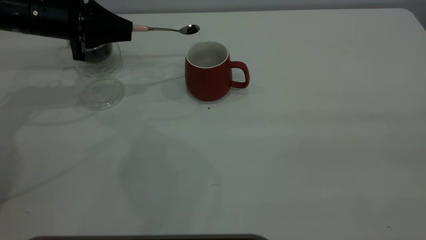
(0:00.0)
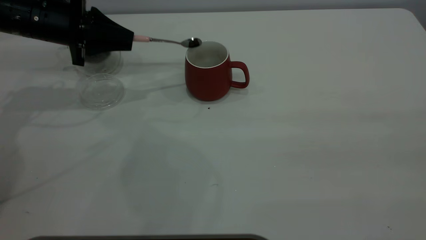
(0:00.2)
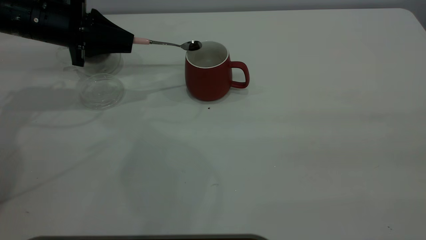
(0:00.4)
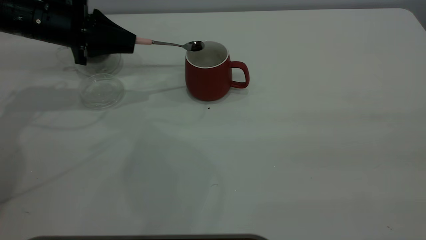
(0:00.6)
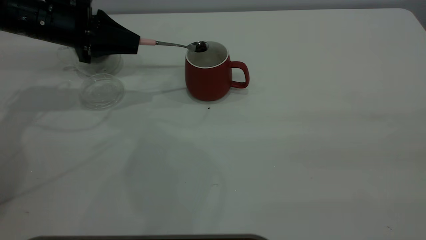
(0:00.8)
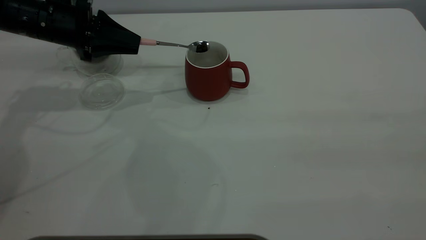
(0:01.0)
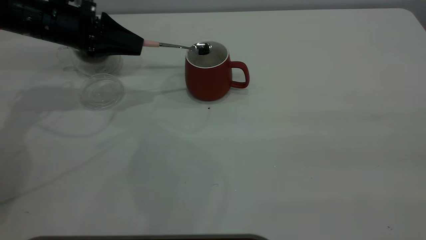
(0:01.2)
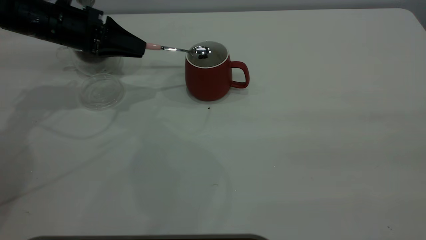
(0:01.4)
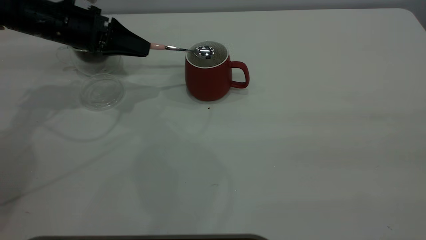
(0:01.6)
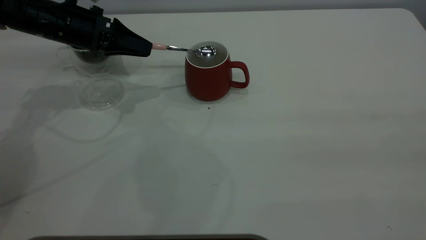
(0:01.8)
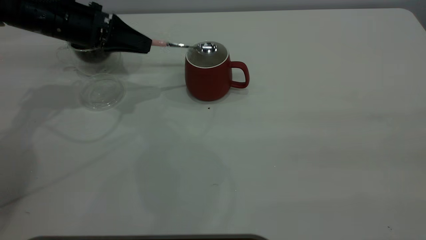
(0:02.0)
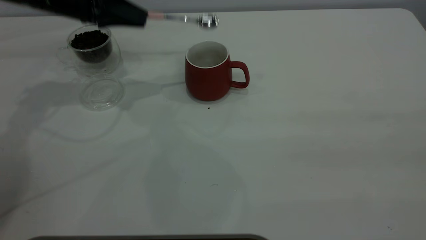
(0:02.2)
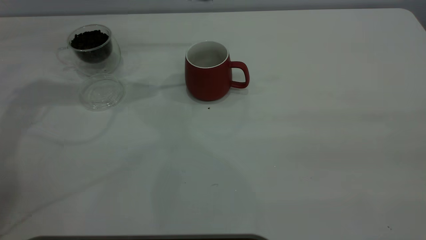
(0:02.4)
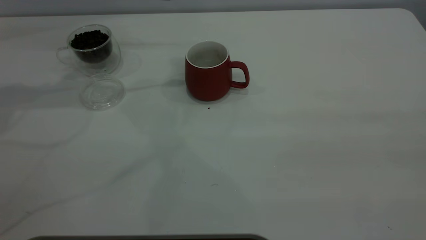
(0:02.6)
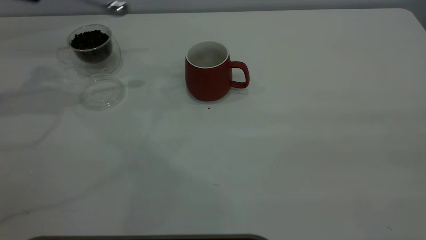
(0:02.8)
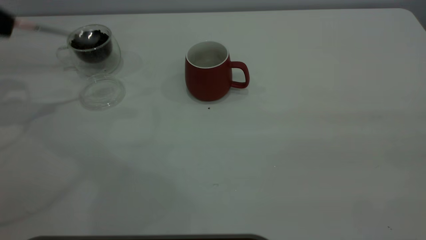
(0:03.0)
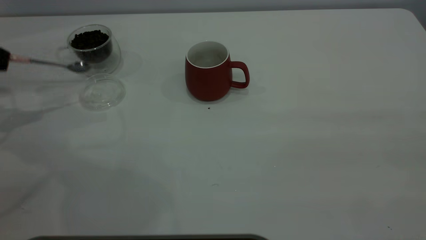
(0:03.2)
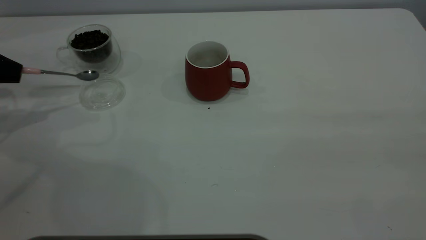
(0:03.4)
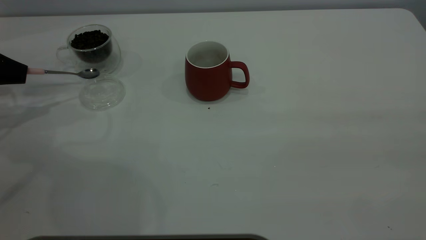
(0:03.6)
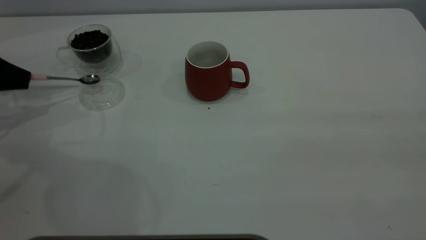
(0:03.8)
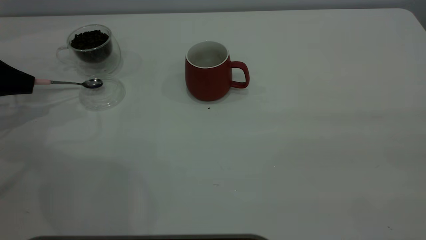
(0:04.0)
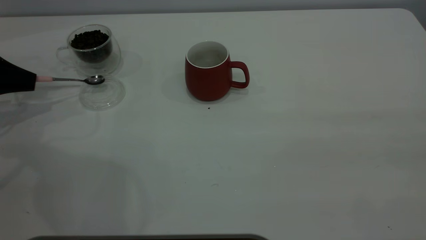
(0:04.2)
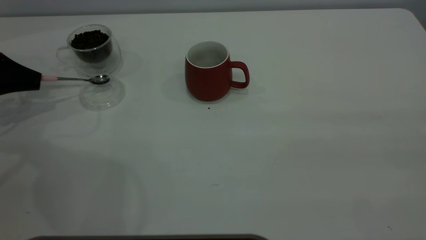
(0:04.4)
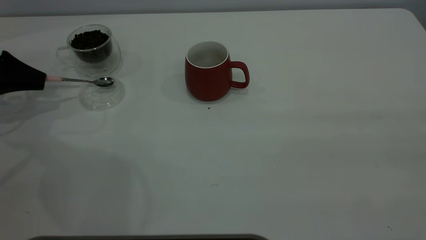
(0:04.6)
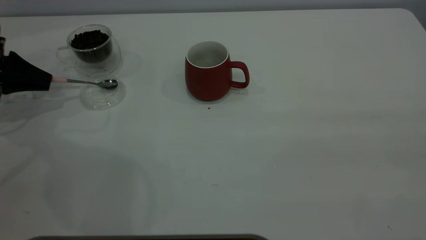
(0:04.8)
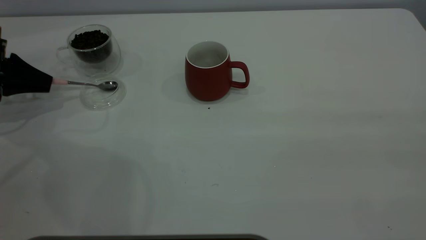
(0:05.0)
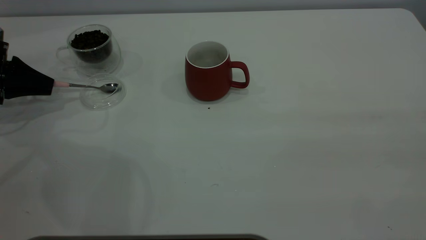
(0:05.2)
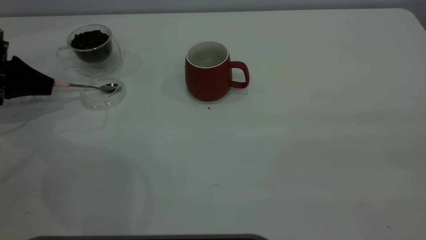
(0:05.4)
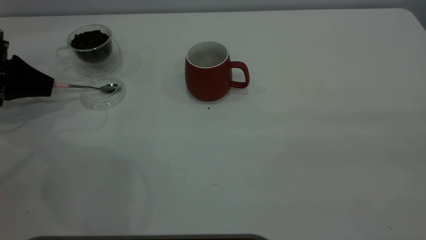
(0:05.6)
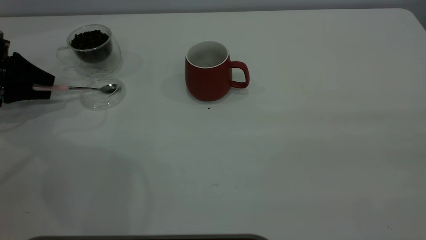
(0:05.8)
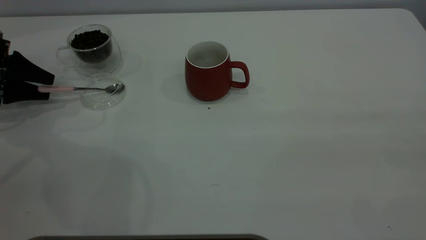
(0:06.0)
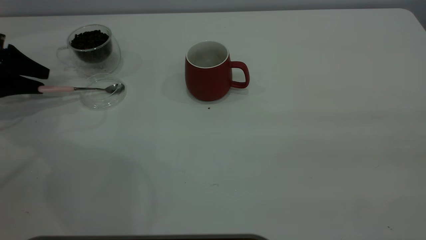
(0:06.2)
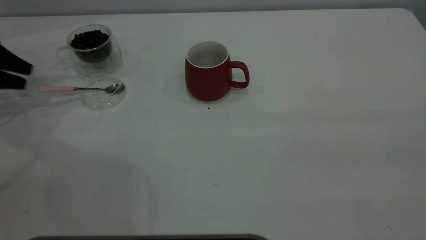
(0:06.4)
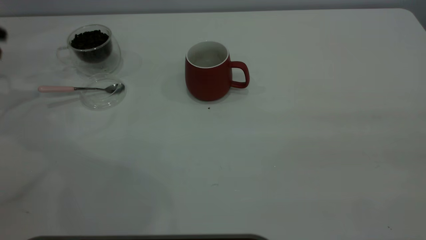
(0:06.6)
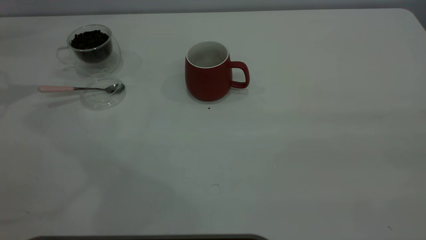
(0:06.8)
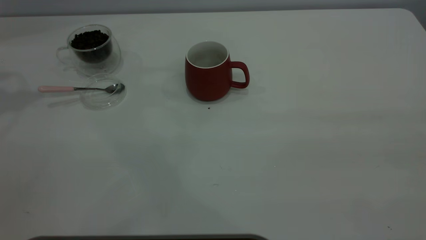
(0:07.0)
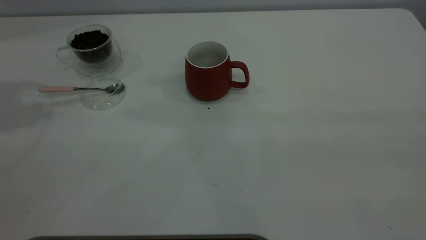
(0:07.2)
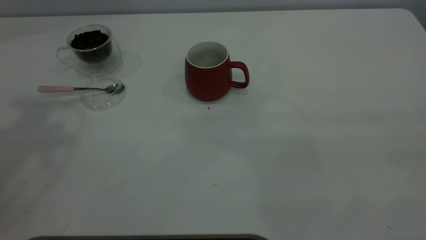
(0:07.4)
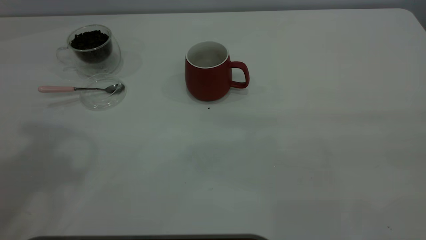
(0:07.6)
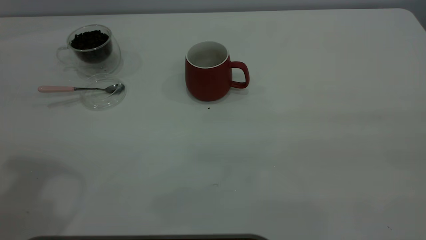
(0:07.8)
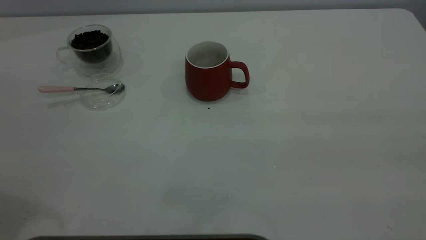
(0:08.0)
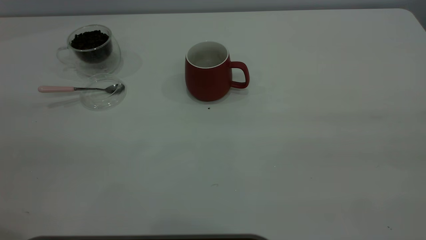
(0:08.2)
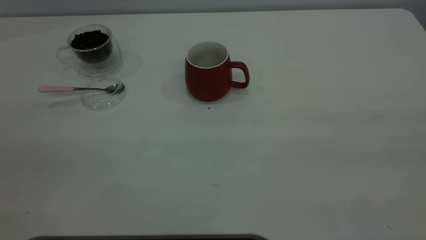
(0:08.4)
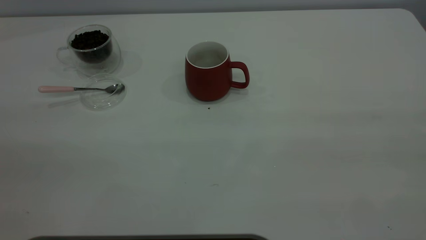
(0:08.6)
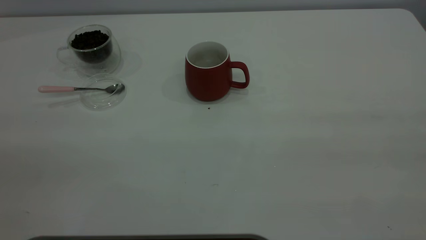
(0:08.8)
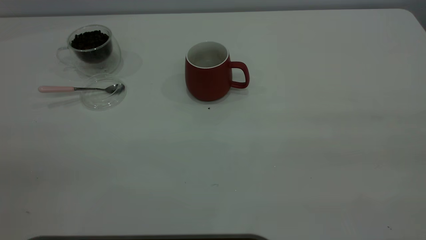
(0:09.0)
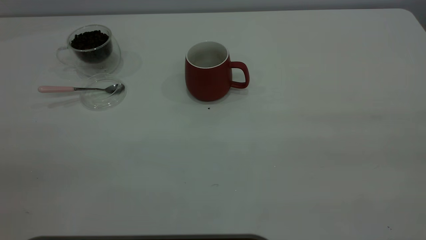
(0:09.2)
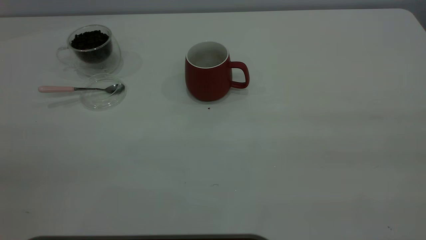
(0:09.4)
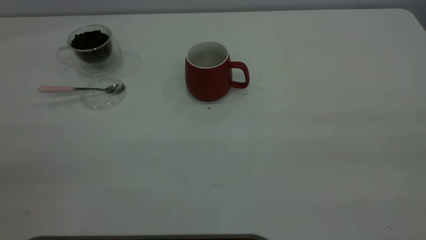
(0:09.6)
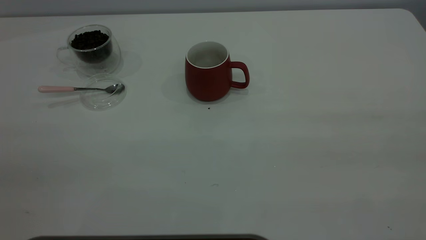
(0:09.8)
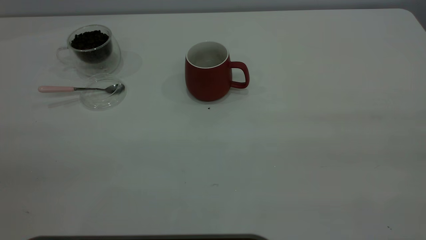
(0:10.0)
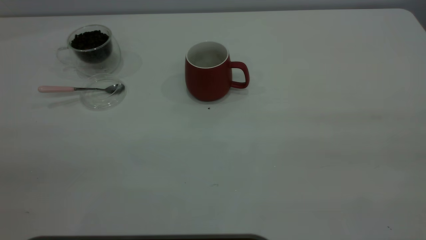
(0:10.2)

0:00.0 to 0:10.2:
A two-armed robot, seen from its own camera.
Task of the whole recording: the right gripper place the red cup in the center of the table, the left gripper take the pink spoon from the cup lid and scoop out the coffee beans from the coffee cup and put them into the red cup, the left gripper put the spoon back into the cup lid.
Step, 0:00.0 to 0:02.2: Scoop a spoonful of beans into the cup.
Step, 0:02.4 to 0:06.4: Place the spoon back in its original place.
0:01.4 to 0:03.0: The left gripper travels to the left and upward by roughly 20 cm.
0:03.0 to 0:04.4: The left gripper shifts some 10 cm downward.
0:04.4 to 0:05.8: The left gripper opens its fingers.
0:05.8 to 0:07.2: The left gripper goes approximately 35 cm upward.

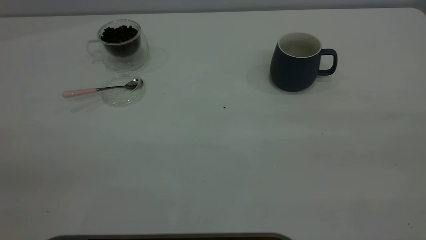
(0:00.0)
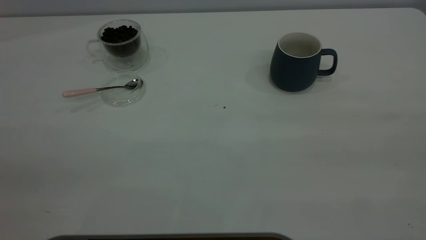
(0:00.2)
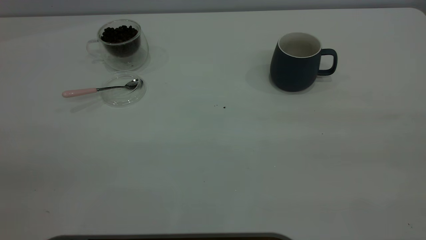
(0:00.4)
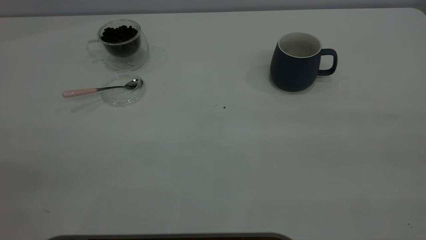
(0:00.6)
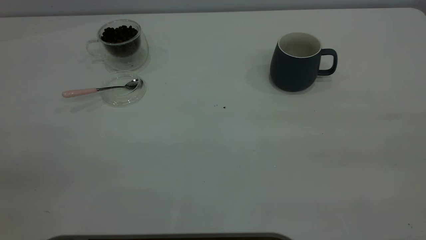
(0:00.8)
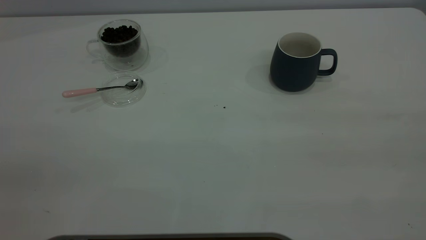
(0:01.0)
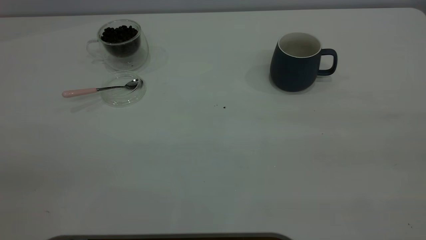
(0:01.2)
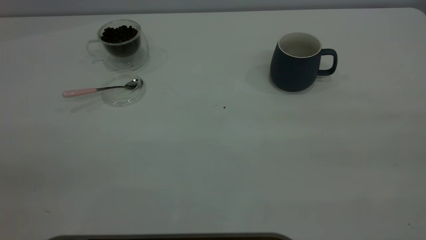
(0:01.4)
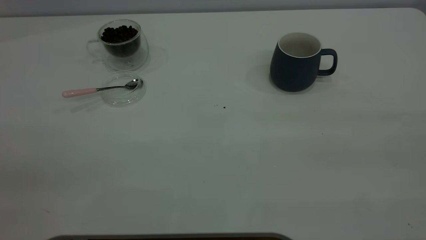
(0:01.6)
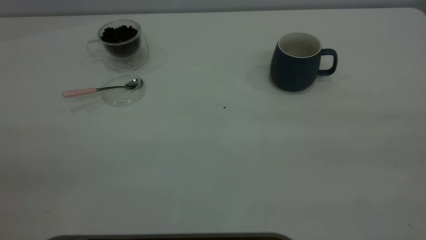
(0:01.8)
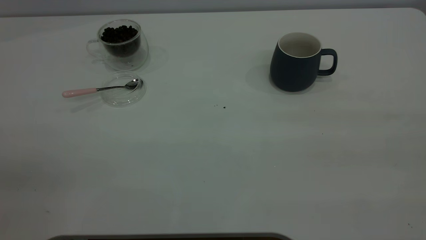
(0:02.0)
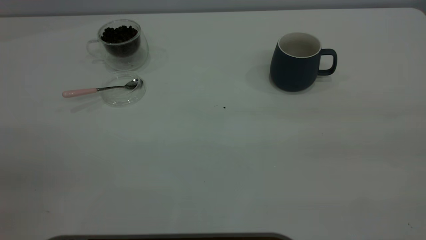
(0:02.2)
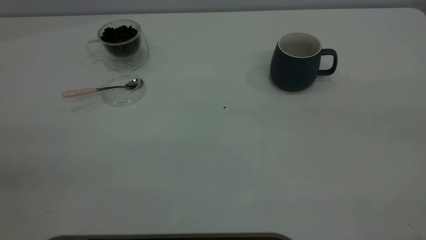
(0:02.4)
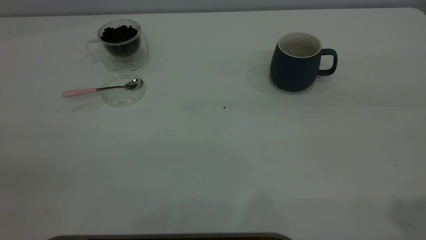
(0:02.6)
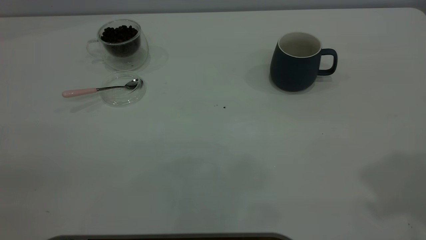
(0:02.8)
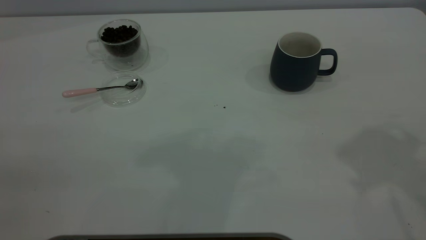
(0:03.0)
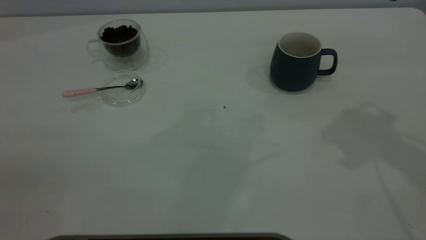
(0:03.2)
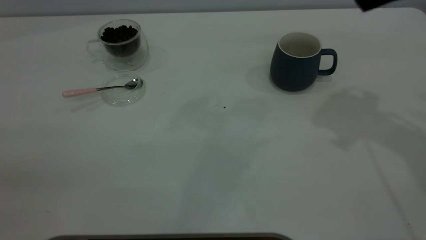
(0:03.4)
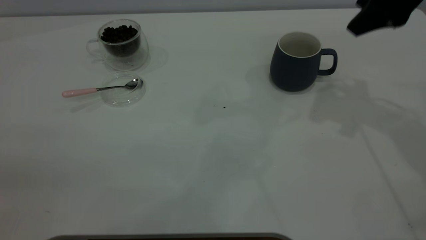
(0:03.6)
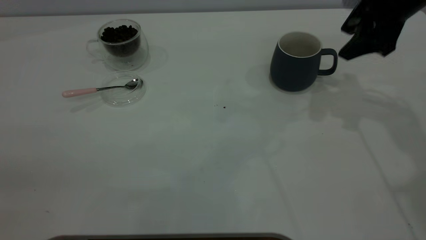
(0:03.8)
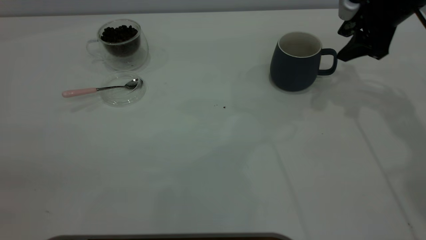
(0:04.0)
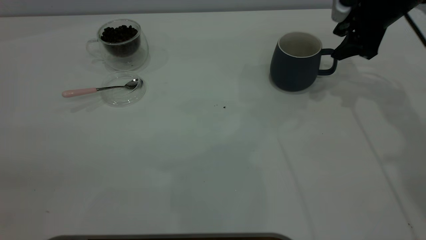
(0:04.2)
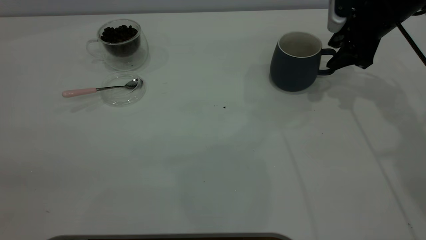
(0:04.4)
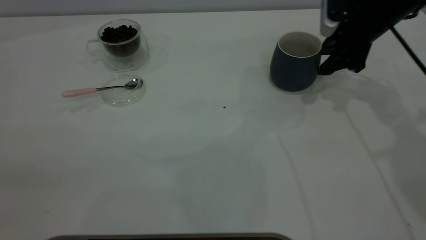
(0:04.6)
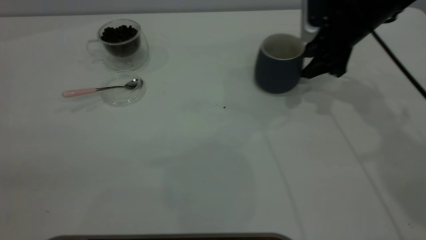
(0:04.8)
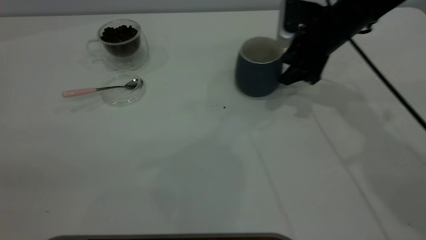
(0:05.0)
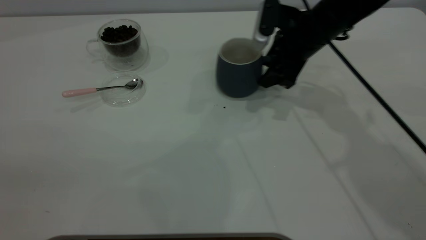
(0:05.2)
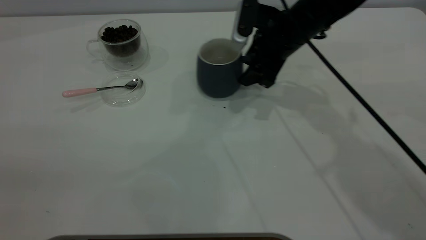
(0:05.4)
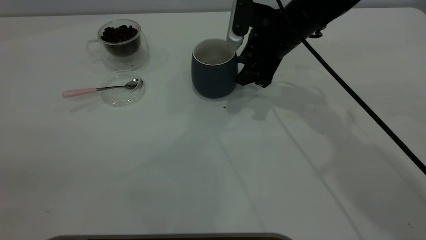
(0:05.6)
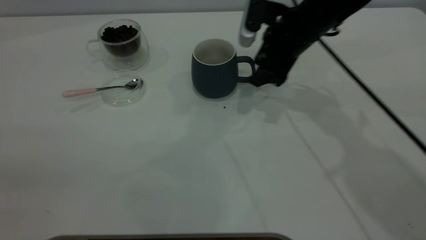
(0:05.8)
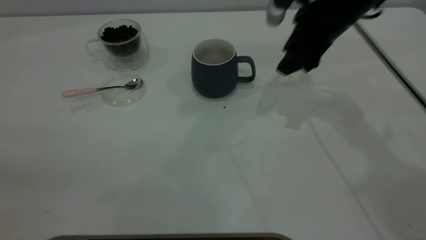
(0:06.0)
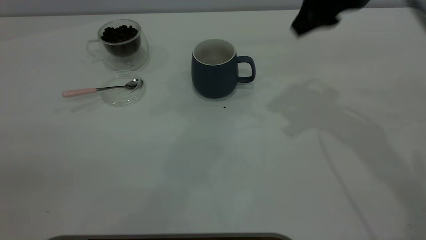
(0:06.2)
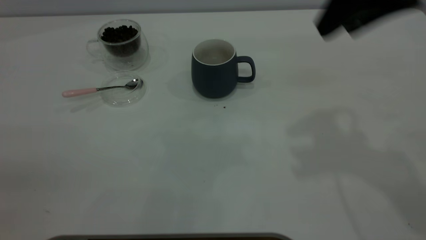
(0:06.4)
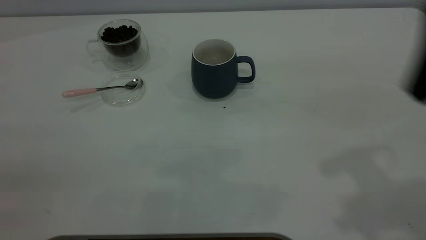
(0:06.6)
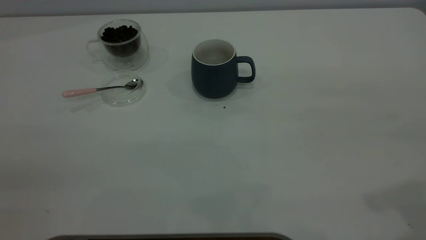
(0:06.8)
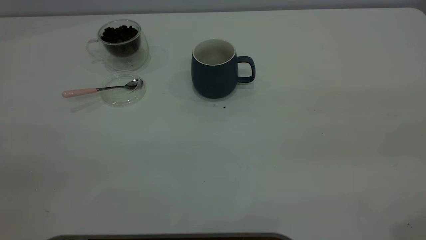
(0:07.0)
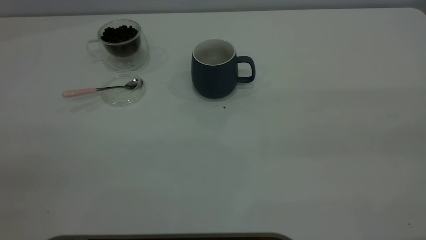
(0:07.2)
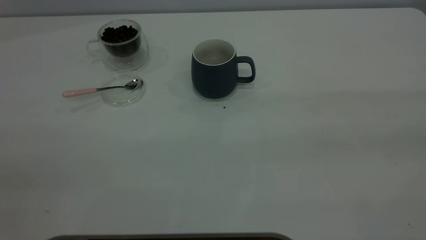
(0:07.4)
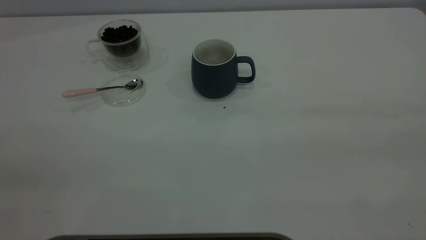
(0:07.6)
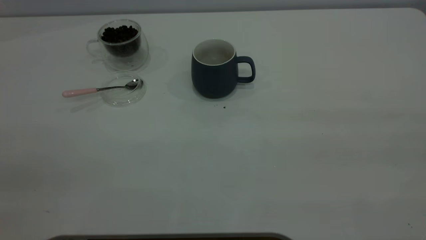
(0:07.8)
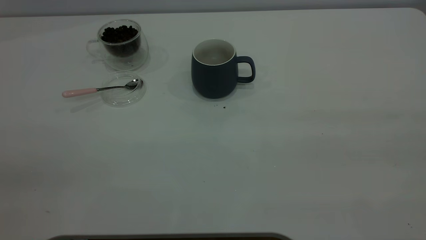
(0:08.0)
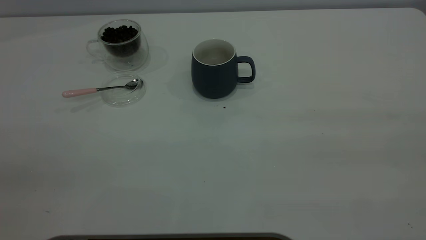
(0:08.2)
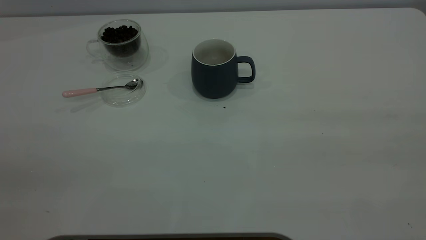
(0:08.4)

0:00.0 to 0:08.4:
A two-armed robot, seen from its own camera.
Task of the whole recording: the right gripper place the grey cup in the center of the table, the left gripper take the pink spoon from the cup lid and scoop out the coffee beans from the coffee cup and put them into the grey cup, the left gripper put the spoon back into the cup lid.
Step, 0:00.0 to 0:05.8: Move the cup to the center of view.
0:00.0 to 0:01.4: Neither gripper changes place.
0:02.8 to 0:04.2: The right gripper heads forward and downward, covering roughly 35 cm.
0:04.2 to 0:05.6: The right gripper travels to the left by roughly 15 cm.
0:05.6 to 0:07.0: The right gripper goes roughly 40 cm backward, upward and to the right.
